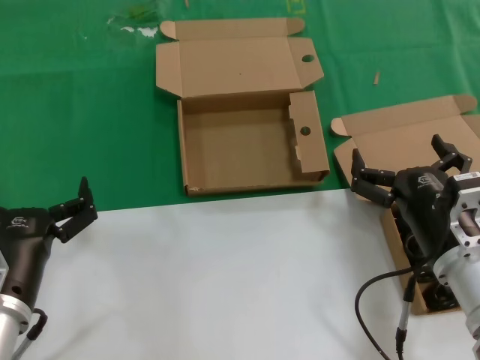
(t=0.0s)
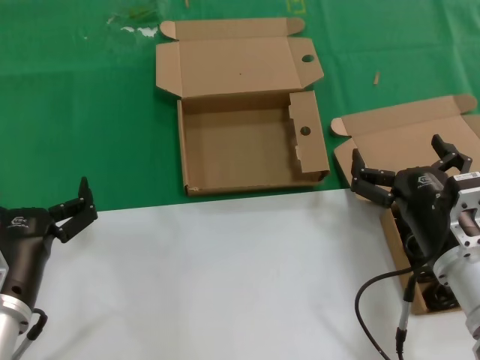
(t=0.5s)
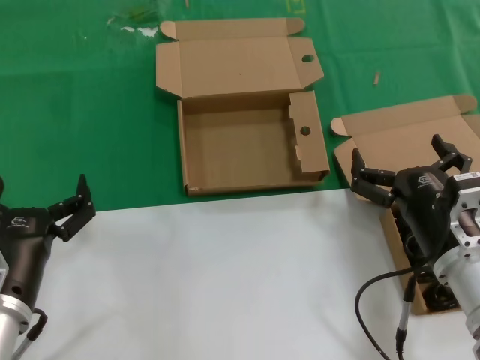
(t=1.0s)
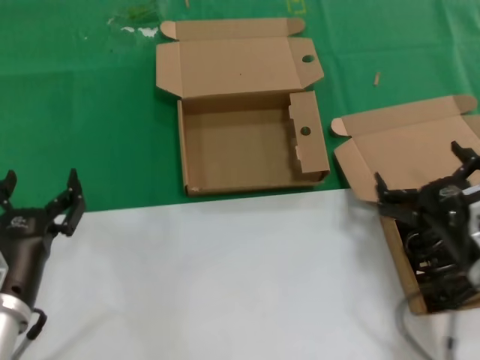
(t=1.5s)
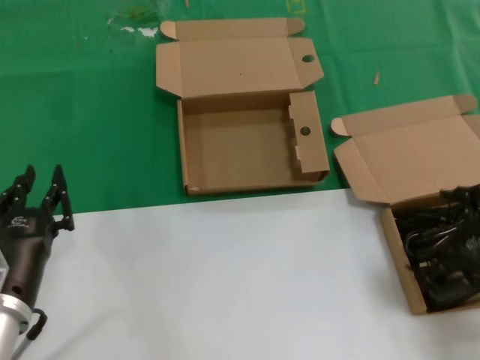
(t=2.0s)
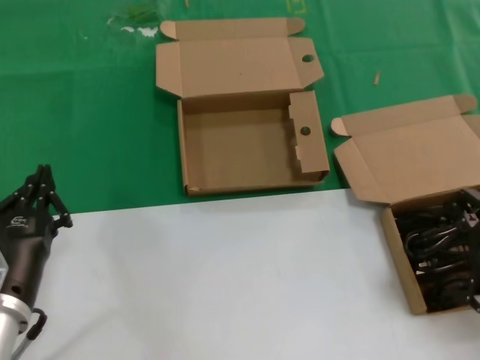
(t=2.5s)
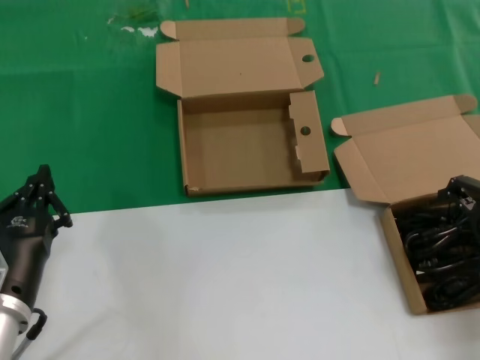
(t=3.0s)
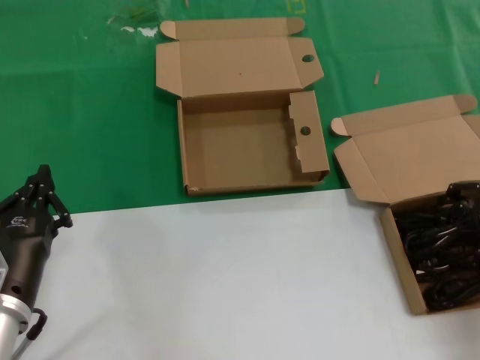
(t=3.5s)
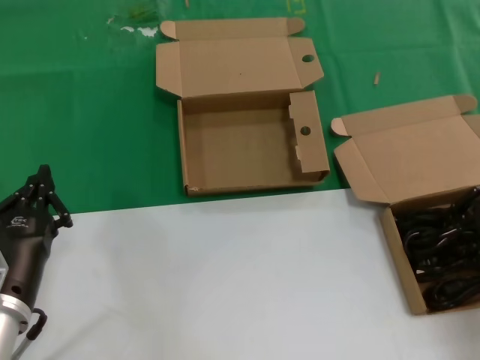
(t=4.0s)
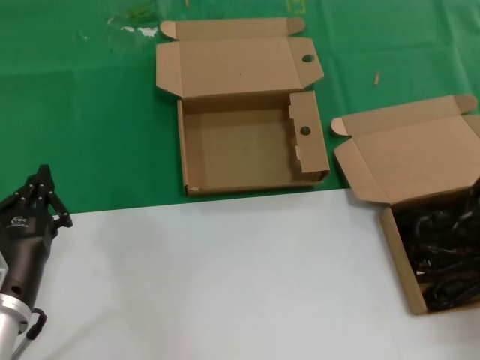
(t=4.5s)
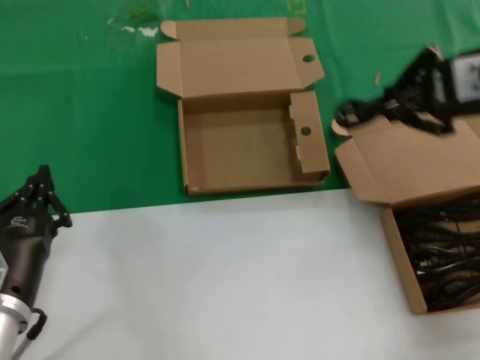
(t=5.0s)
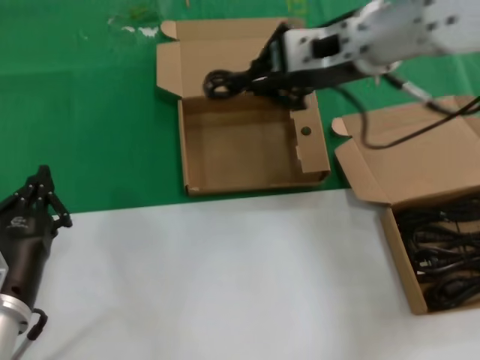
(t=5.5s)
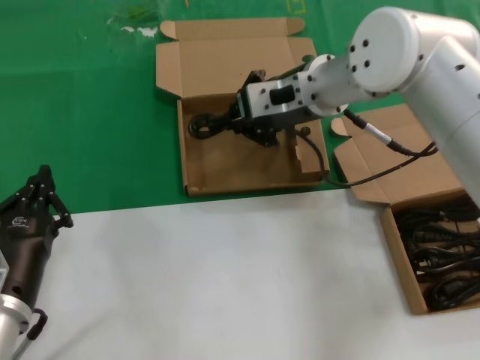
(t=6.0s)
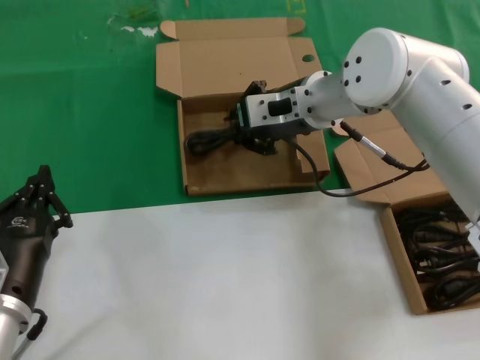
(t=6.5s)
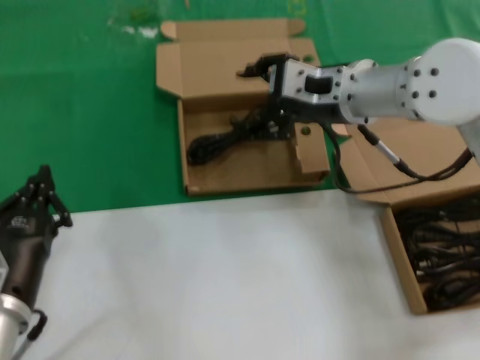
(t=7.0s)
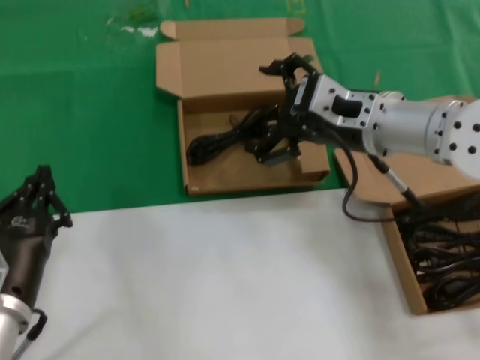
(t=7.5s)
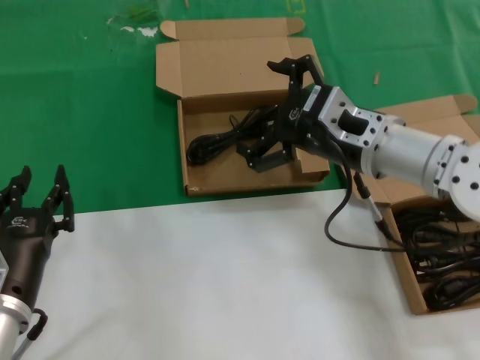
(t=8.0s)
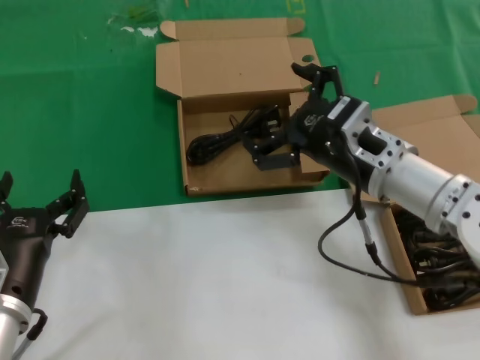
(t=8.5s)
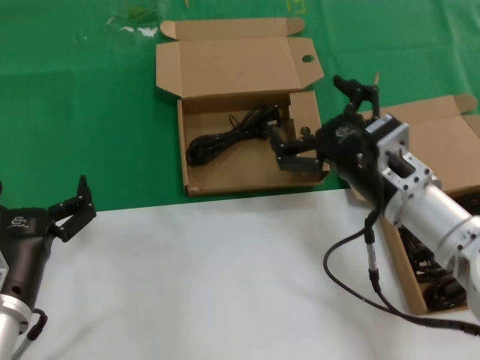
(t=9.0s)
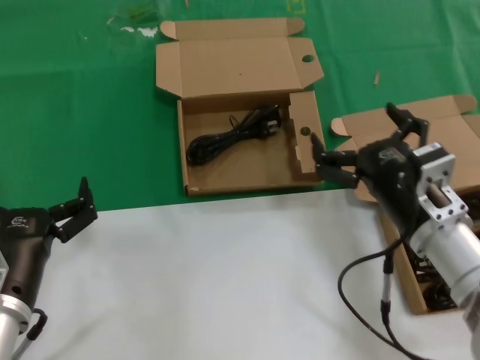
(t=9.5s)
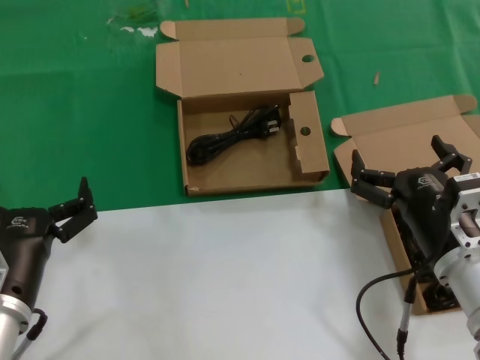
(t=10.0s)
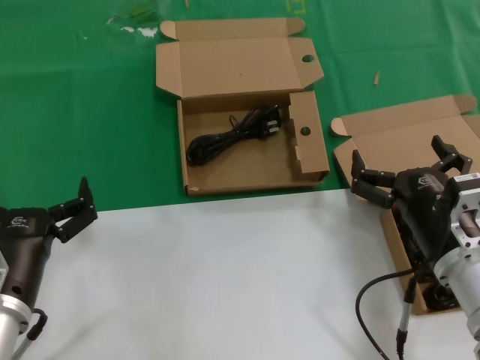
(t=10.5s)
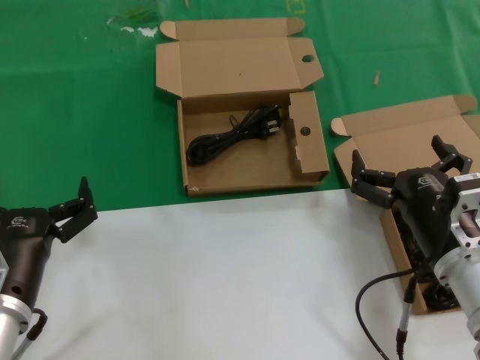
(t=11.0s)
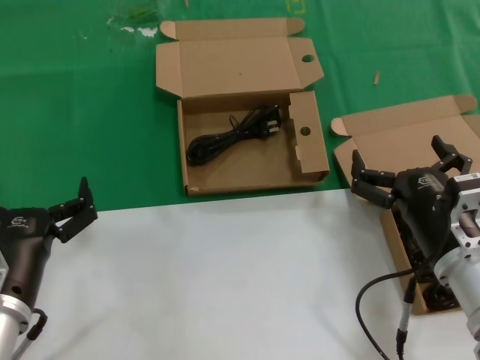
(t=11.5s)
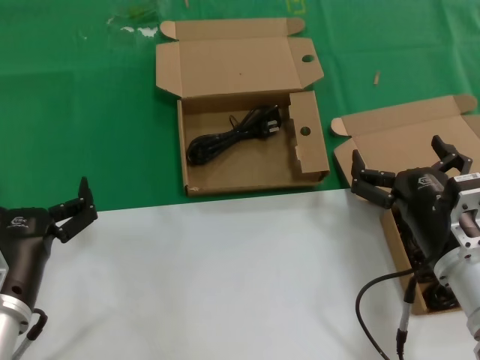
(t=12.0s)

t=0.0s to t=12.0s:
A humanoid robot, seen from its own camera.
Task of the whole recording: take the parts from the box containing them and put them into an empty box.
Step, t=0.0s to t=4.0s: Grasp the data cable.
Step, t=4.5s to t=6.5s: Place the data cable in the another box.
t=0.0s to t=2.0s: The right hand moves to the right and upward, roughly 15 cm.
t=2.0s to t=4.0s: The right hand heads forward and upward, covering about 10 cm.
t=4.0s to t=6.0s: The right hand goes approximately 30 cm to the left and forward.
t=6.0s to t=8.0s: The right hand heads backward, downward and to the right, covering about 15 cm.
t=8.0s to t=10.0s: The right hand shifts approximately 20 cm downward, backward and to the right.
t=10.0s to t=12.0s: Both hands stay about where they are.

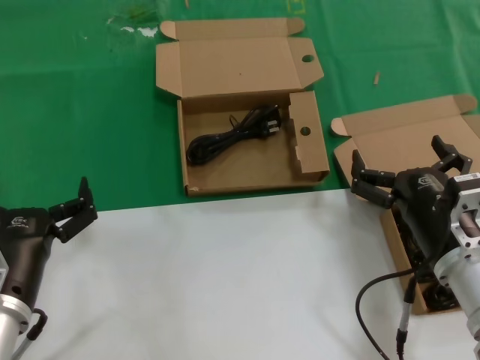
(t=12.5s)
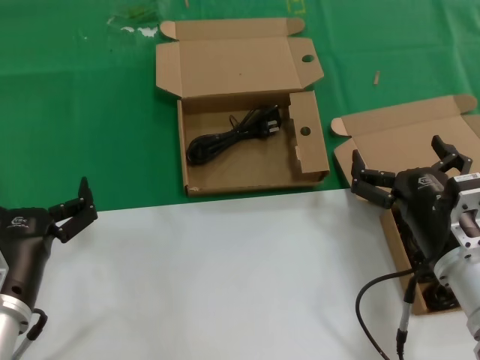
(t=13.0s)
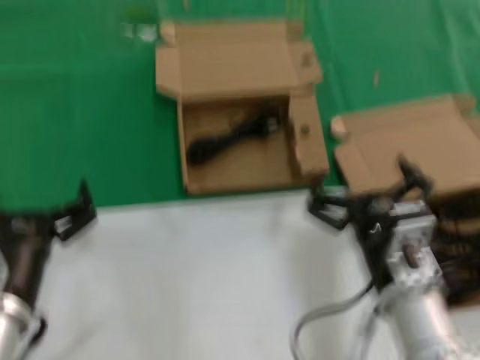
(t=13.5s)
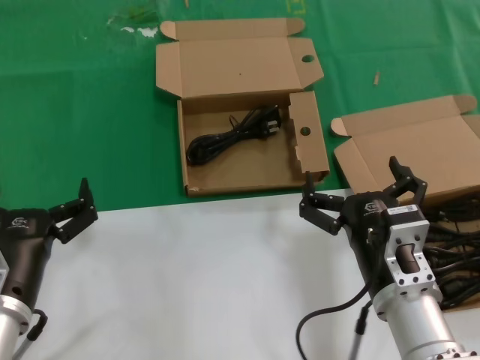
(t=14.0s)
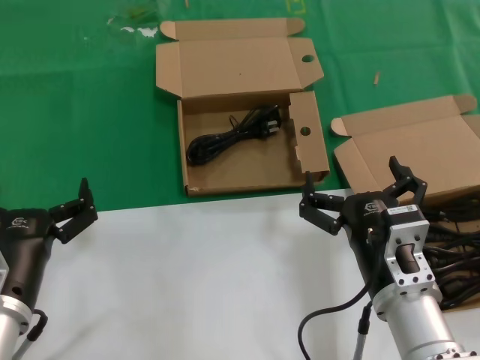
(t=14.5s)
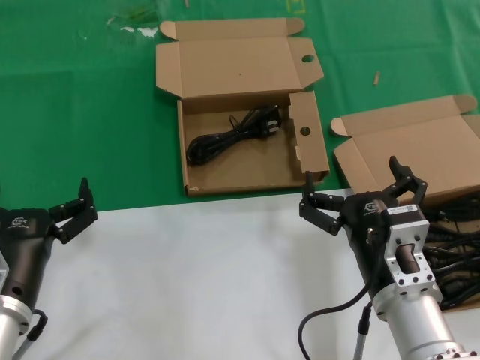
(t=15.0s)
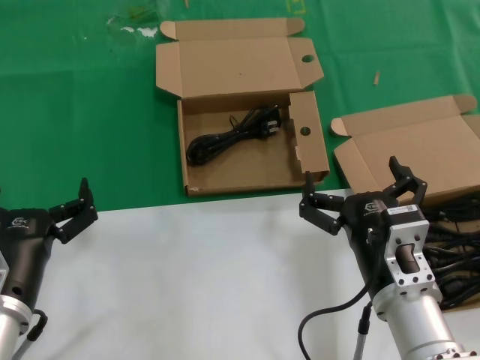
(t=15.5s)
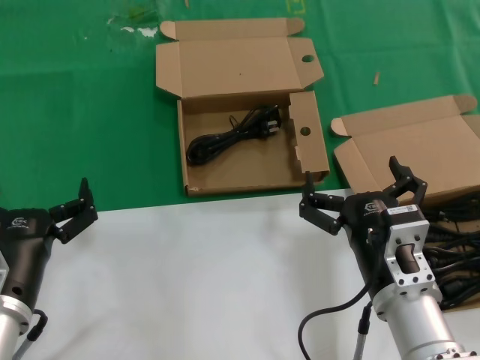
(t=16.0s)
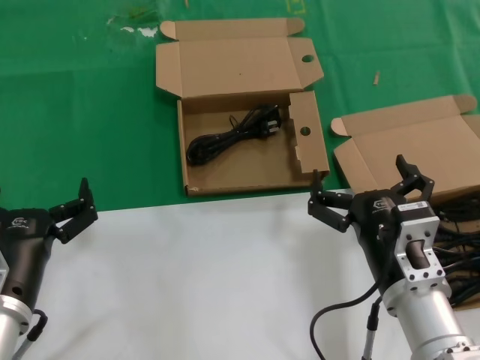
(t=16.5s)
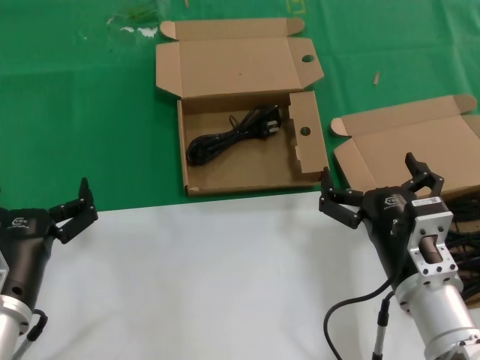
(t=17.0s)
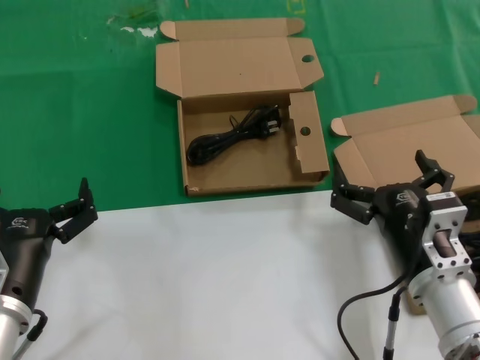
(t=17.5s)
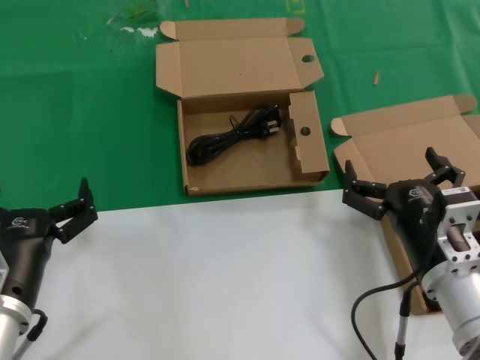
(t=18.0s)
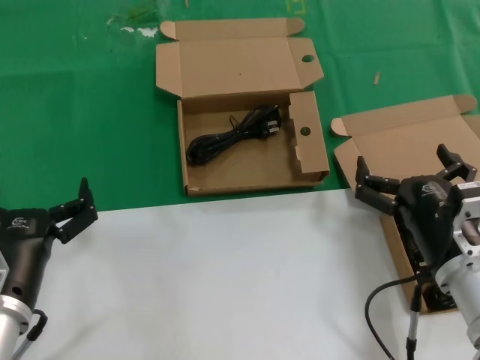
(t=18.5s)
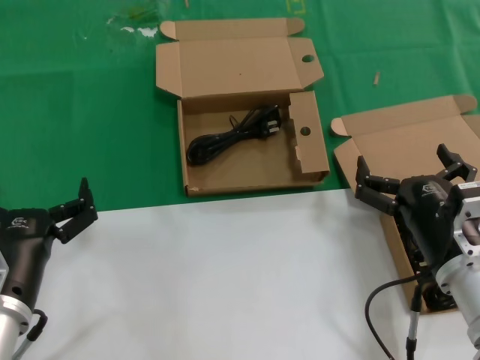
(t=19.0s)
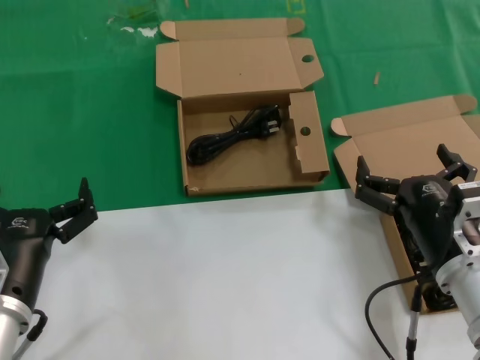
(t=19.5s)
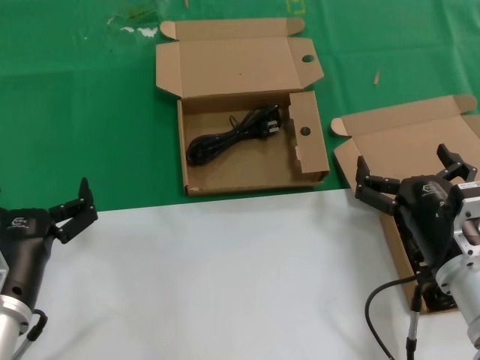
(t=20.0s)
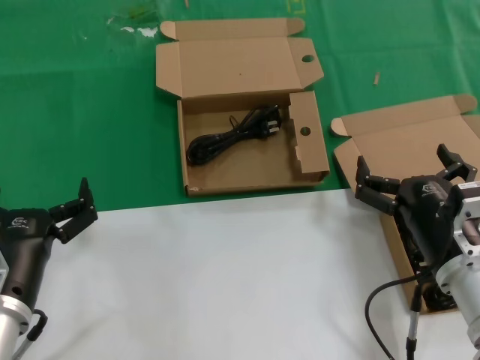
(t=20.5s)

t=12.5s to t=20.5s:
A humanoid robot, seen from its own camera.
Task of the whole recording: take the parts from the box containing them and put them into an empty box.
t=12.5s to t=14.5s: The right hand heads to the left, covering approximately 10 cm.
t=14.5s to t=16.5s: Both hands stay about where they are.
t=16.5s to t=18.5s: The right hand goes about 5 cm to the right.
t=18.5s to t=20.5s: Both hands stay about where they are.
